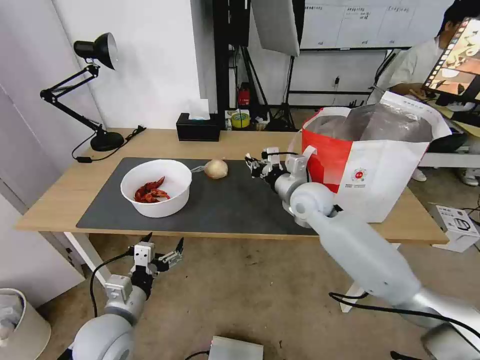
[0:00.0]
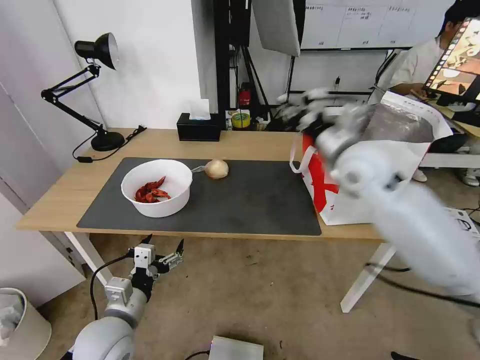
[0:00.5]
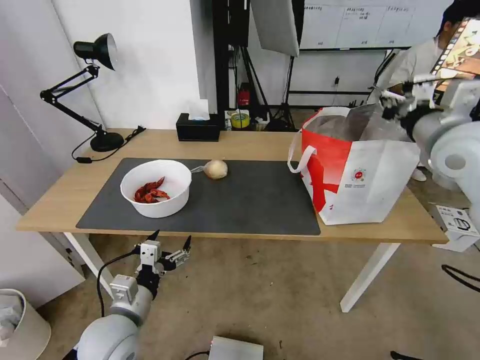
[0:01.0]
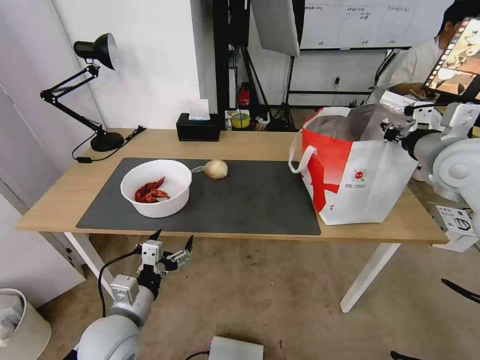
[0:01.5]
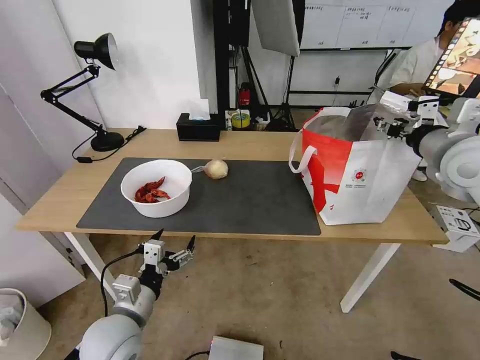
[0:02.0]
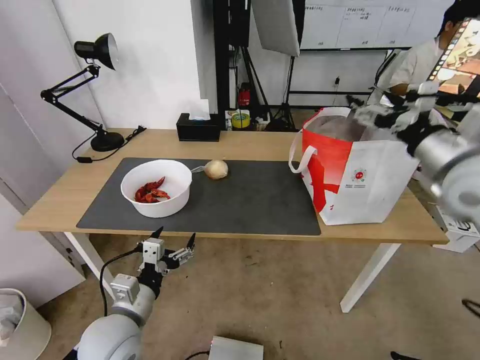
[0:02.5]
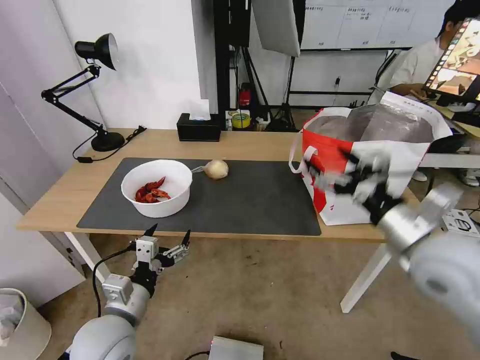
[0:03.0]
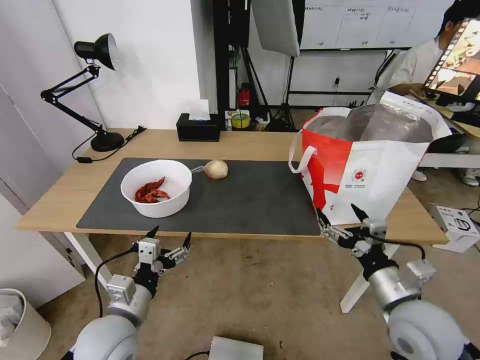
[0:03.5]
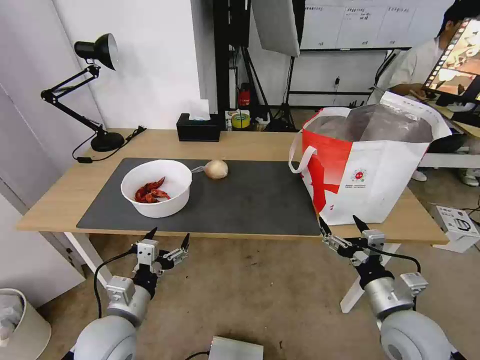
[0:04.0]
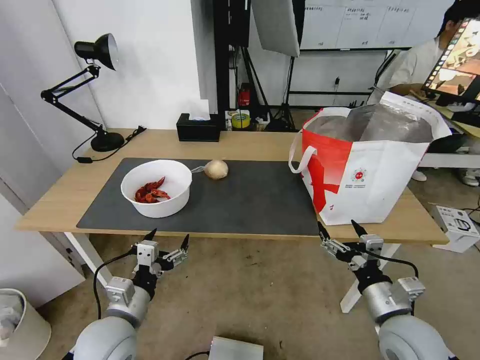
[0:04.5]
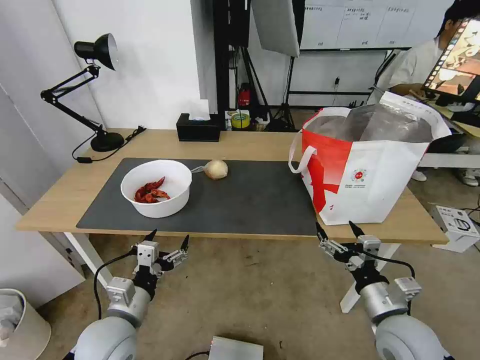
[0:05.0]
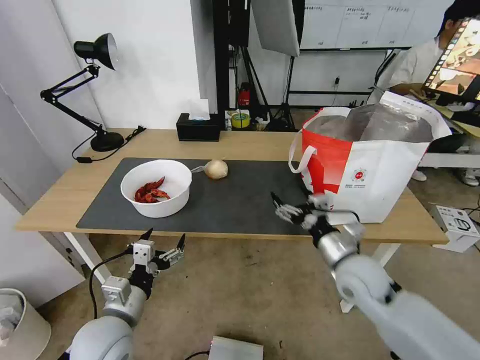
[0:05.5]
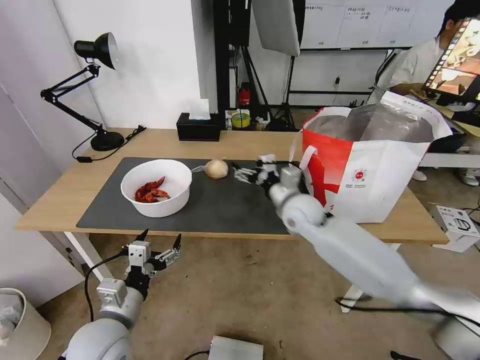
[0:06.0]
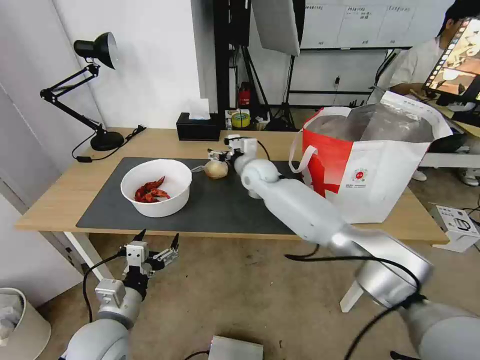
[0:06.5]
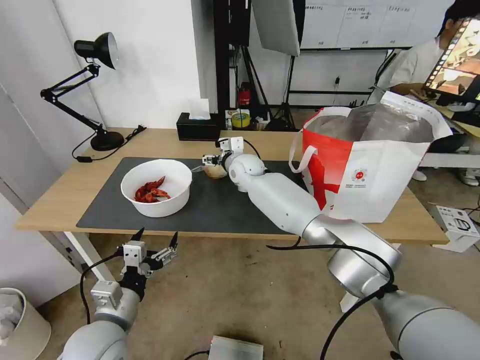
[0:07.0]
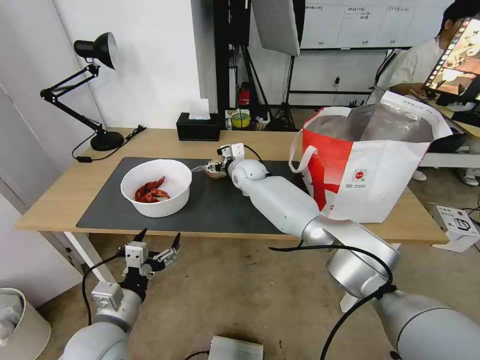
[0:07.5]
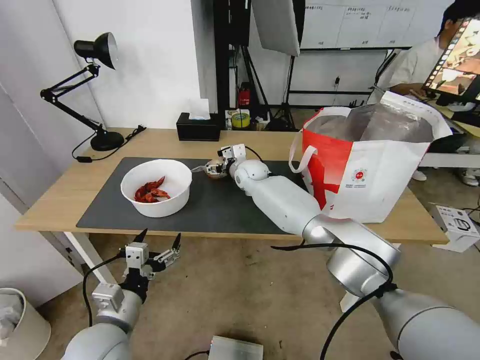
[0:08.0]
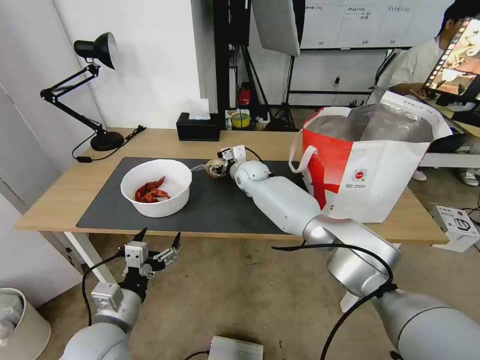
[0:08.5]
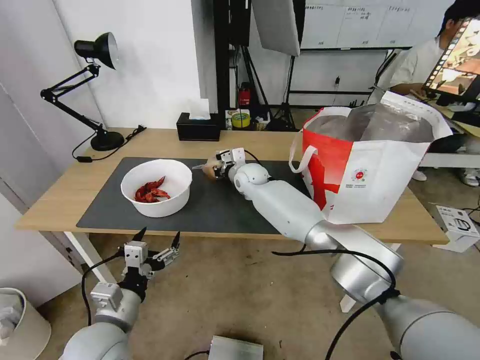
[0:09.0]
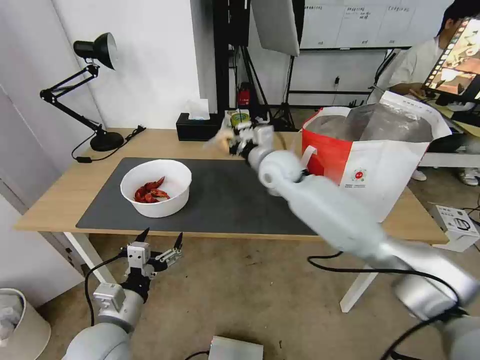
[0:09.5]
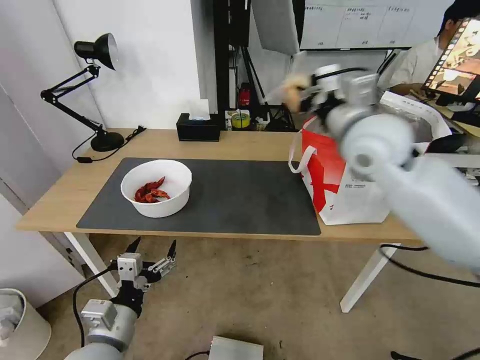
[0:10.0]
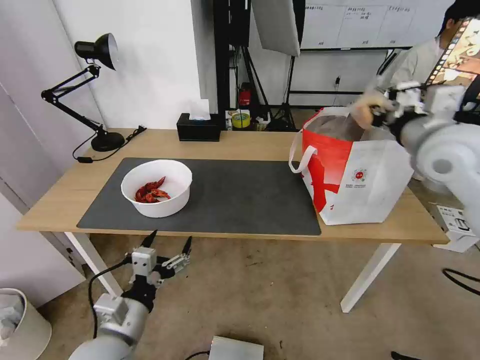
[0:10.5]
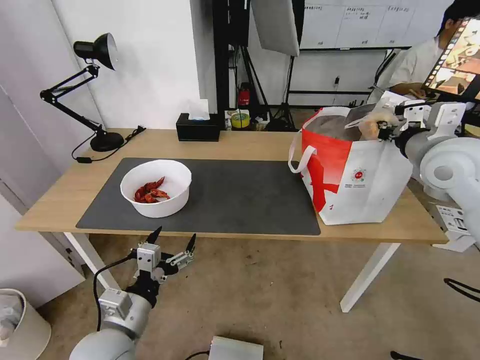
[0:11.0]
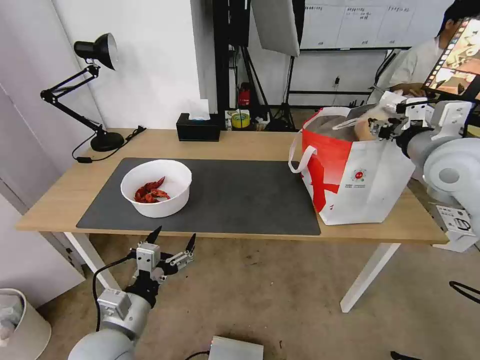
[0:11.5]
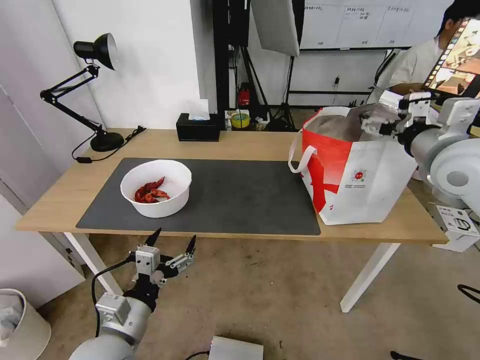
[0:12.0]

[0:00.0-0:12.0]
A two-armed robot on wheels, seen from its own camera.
Task of the whole recording: Pick up the trash from the table and place it into the takeout bag.
0:00.0 to 0:02.0: The right gripper goes about 30 cm to the right and upward, and opens its fingers.
0:02.0 to 0:04.0: The right gripper is displaced downward and backward by approximately 30 cm, and opens.
0:04.0 to 0:06.0: The right gripper shifts approximately 30 cm forward and to the left.
0:06.0 to 0:08.0: The right gripper travels forward and to the left by some 20 cm.
0:08.0 to 0:10.0: The right gripper heads upward, backward and to the right, covering about 35 cm, and closes up.
0:10.0 to 0:12.0: The right gripper is displaced to the right by some 15 cm, and opens up.

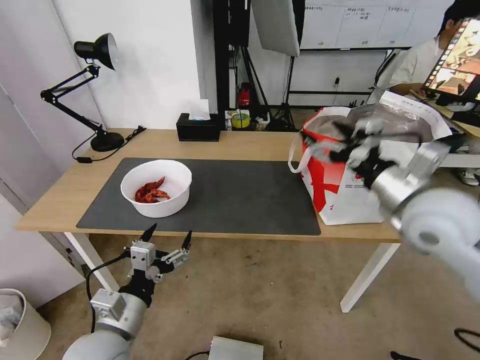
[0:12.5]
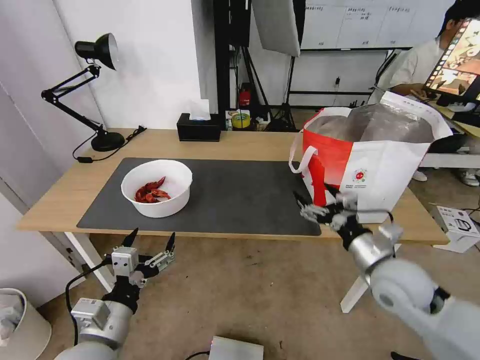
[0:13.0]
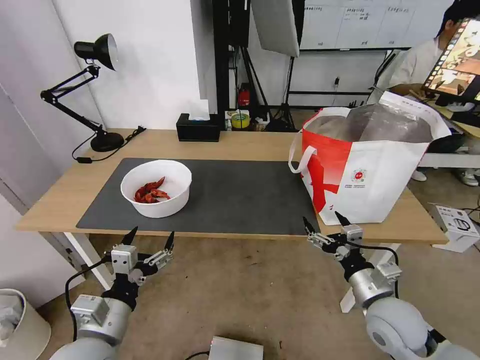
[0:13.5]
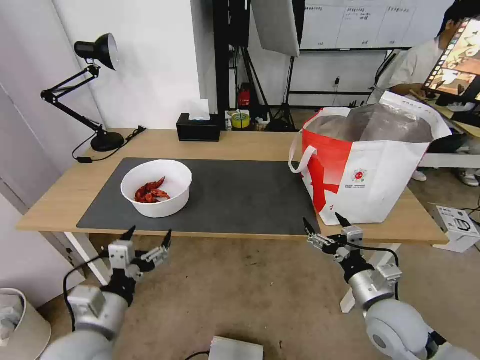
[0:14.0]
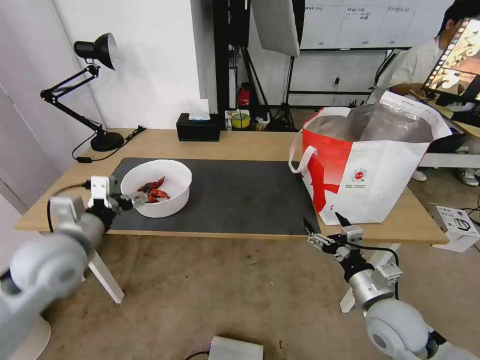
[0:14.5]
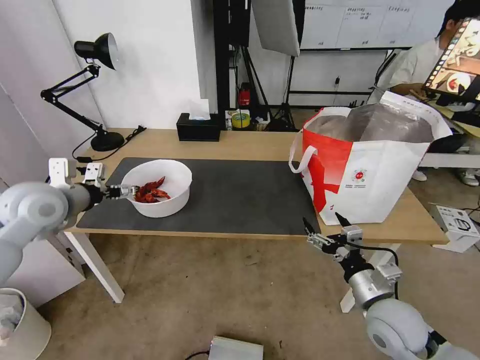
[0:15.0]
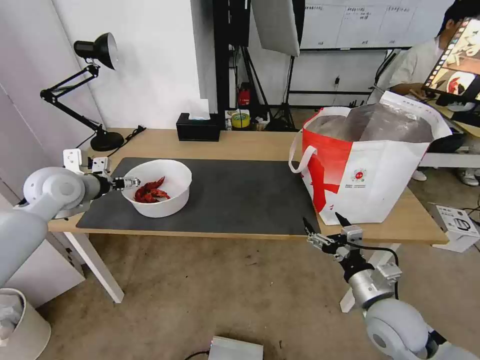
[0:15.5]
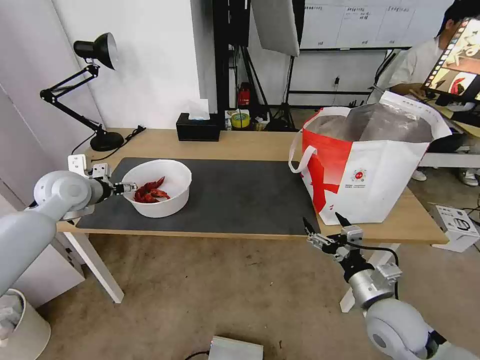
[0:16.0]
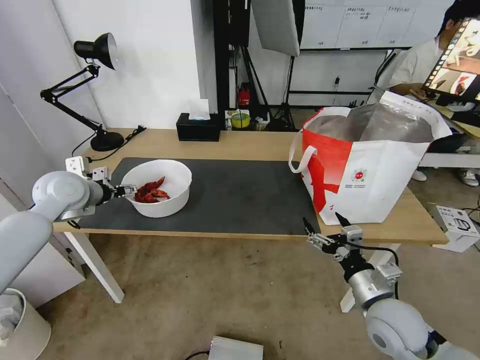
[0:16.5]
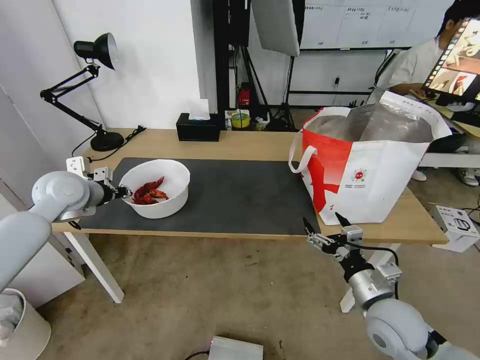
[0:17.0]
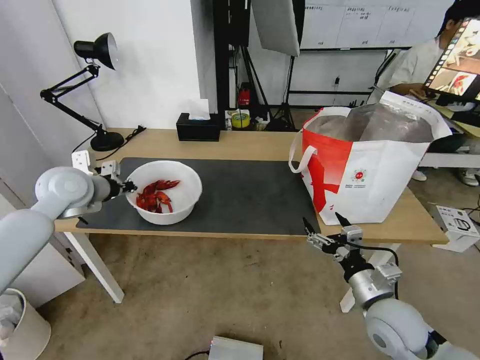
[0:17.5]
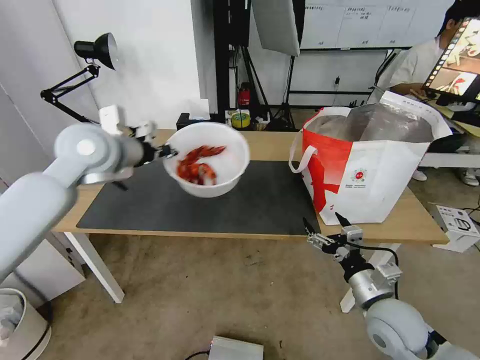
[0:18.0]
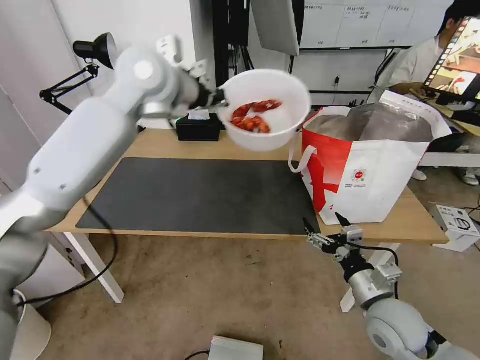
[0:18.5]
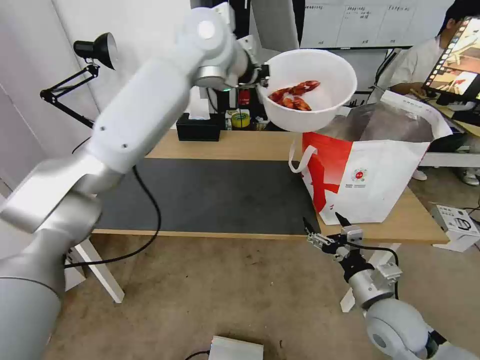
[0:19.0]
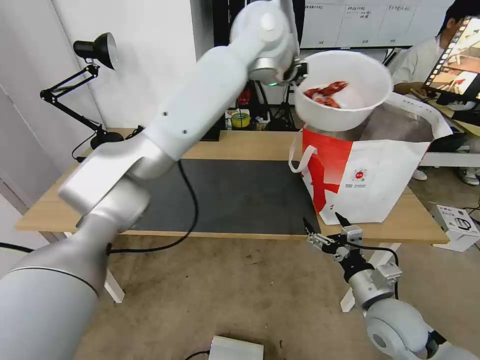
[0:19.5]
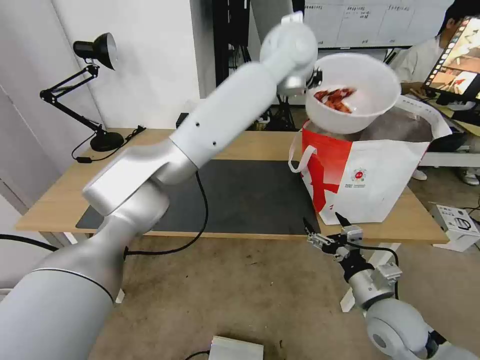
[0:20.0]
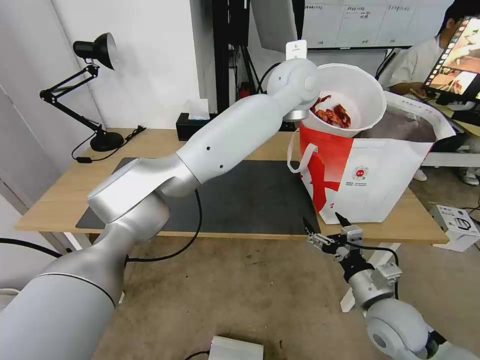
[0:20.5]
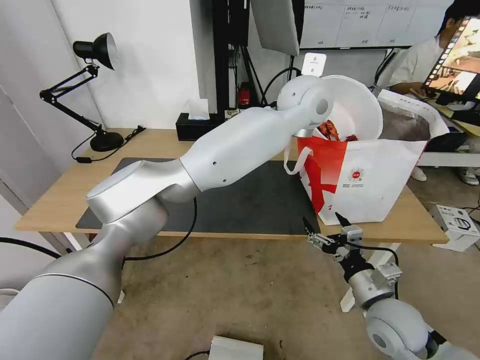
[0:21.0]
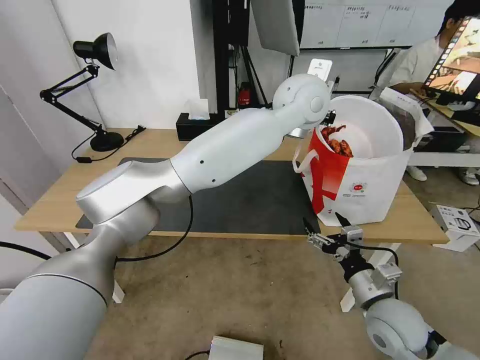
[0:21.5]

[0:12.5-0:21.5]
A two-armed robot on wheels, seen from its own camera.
Task of the whole recording: Pick up the trash from the table and place it into the takeout bag.
0:12.5 to 0:14.5: The left gripper goes approximately 20 cm forward, upward and to the left, while the right gripper shifts some 20 cm downward and backward.
0:14.5 to 0:17.0: The left gripper moves forward, some 15 cm, and closes up.
0:17.0 to 0:19.5: The left gripper moves to the right and upward, approximately 50 cm.
0:19.5 to 0:21.5: The left gripper shifts approximately 10 cm downward, to the right and backward.

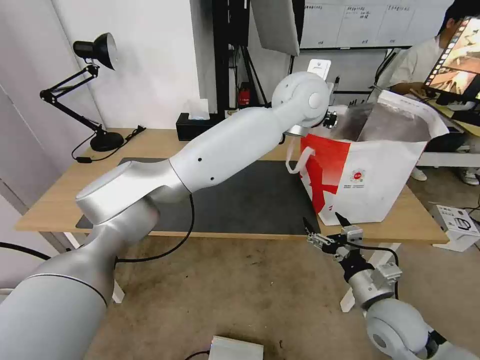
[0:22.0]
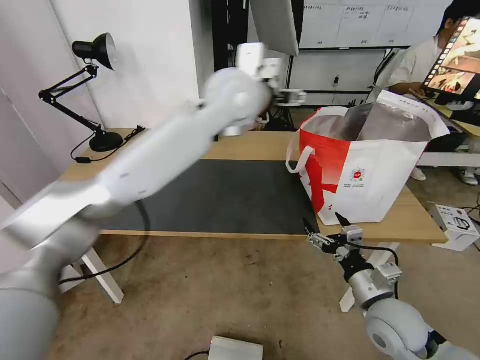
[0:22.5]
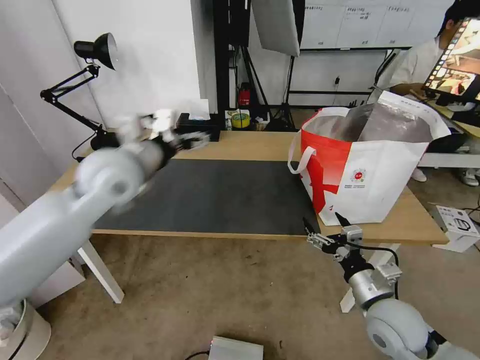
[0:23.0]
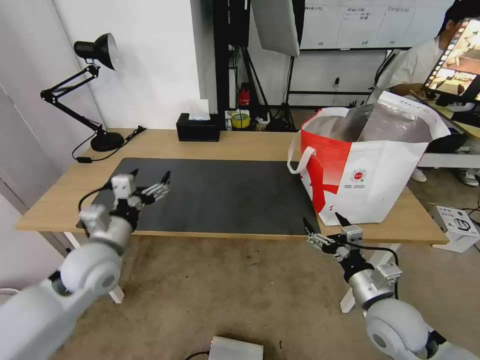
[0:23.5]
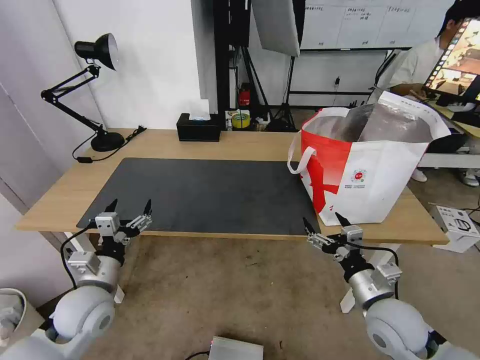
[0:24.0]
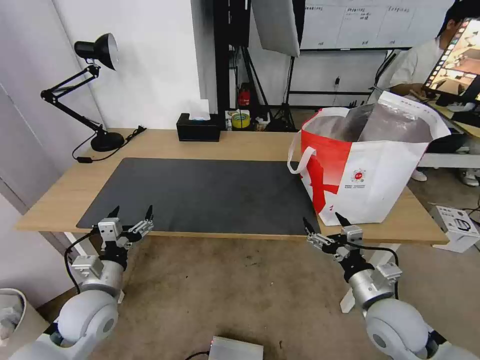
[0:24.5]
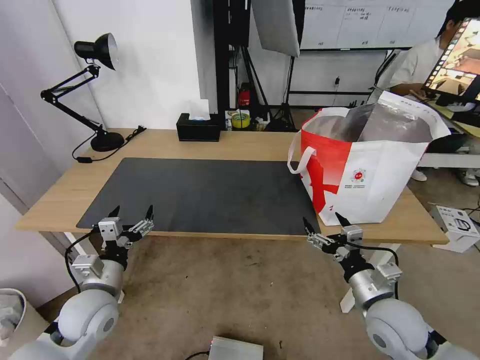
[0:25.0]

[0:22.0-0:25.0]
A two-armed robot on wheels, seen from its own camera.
Task of the whole recording: Pick up the trash from the table and place it into the takeout bag.
0:22.0 to 0:23.5: The left gripper is displaced to the left, downward and backward by roughly 50 cm, and opens its fingers.
0:23.5 to 0:25.0: The left gripper shifts about 10 cm downward and backward.

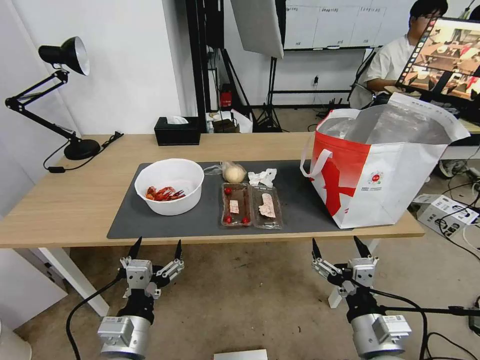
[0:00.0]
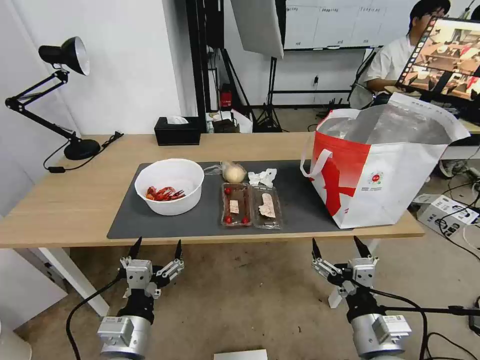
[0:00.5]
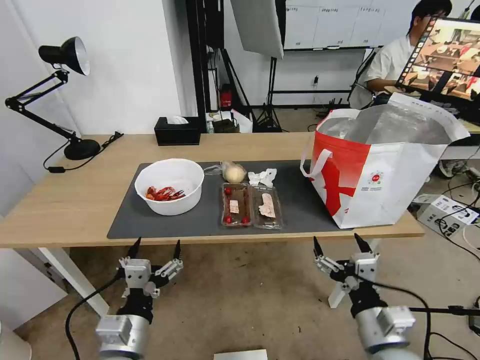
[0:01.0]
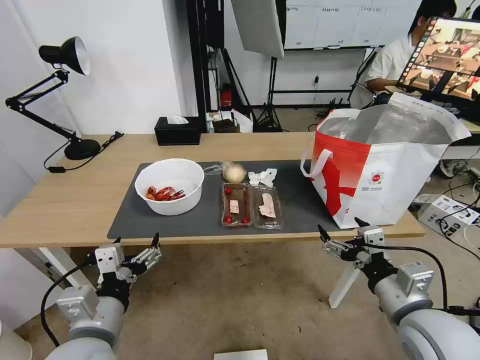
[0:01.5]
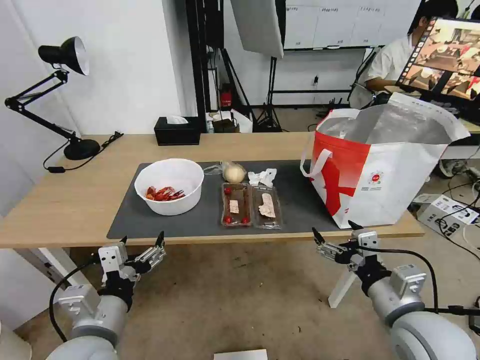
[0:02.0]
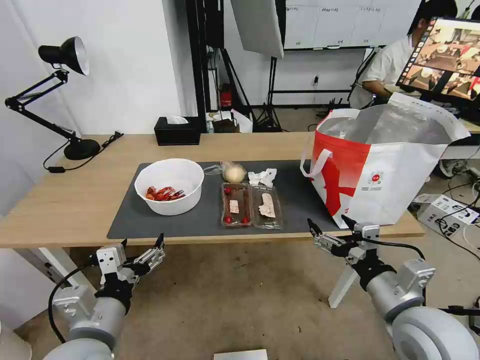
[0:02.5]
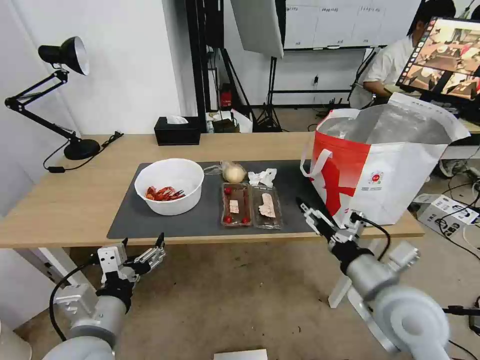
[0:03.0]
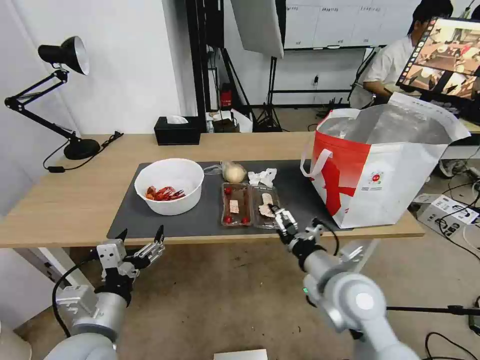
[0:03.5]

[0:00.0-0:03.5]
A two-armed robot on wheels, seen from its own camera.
Task of the whole recording: Pick up the trash from the table and place it into the takeout bag.
0:02.0 to 0:03.5: The right gripper moves to the left and forward, approximately 10 cm.
